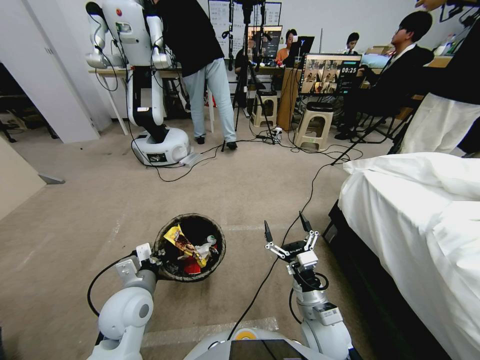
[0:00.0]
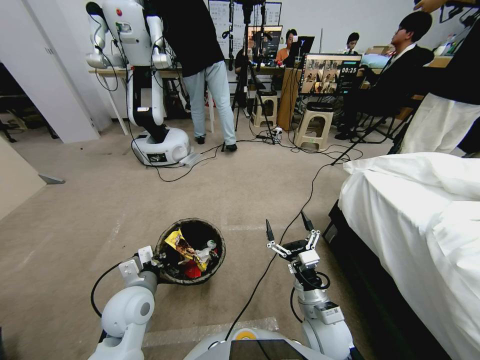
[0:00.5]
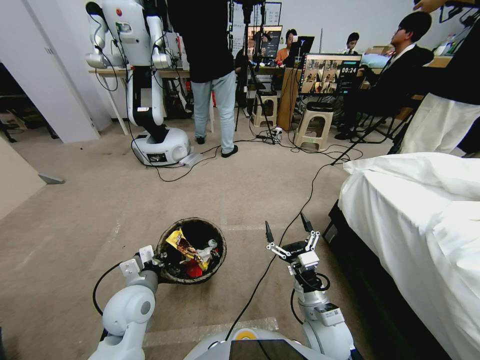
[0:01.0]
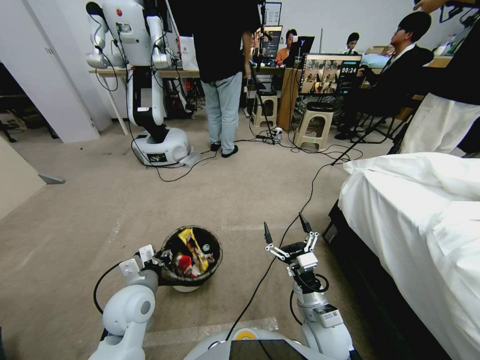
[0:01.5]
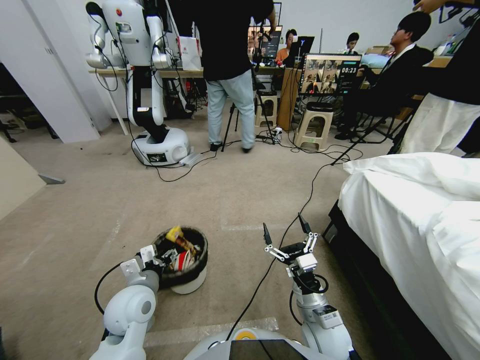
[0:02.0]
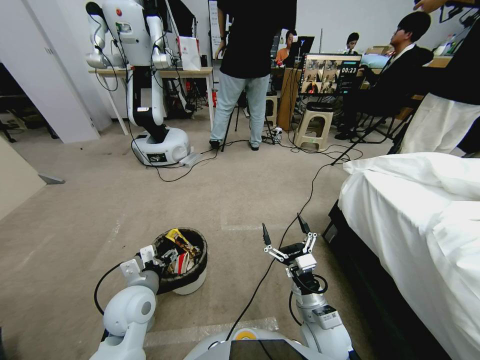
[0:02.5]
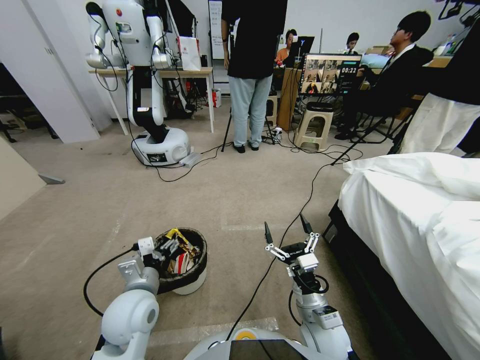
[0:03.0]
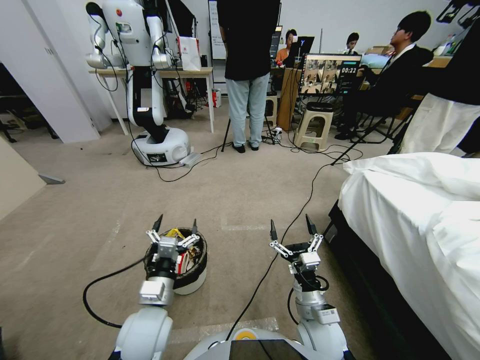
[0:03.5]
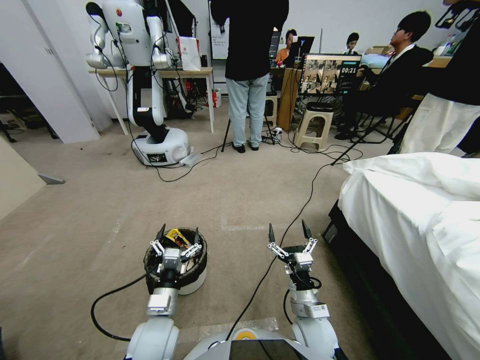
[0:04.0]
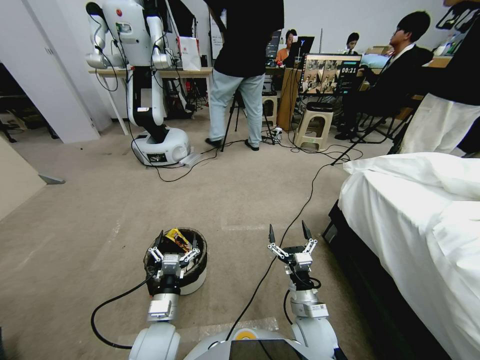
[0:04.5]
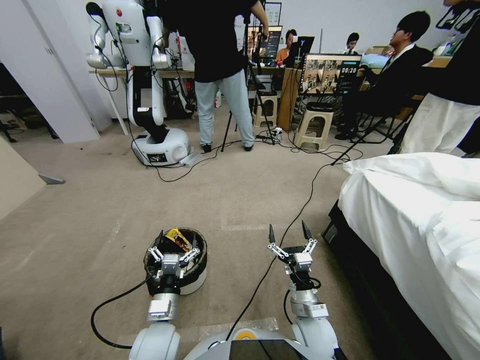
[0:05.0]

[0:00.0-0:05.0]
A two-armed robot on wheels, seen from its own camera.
Task of the whole recording: Pick up the trash bin, then pick up the garbage from the floor and place it into the trash bin.
0:00.0 to 0:02.5: The left gripper opens up.
0:02.5 to 0:05.0: The left gripper heads downward, backward and to the right, covering some 10 cm.

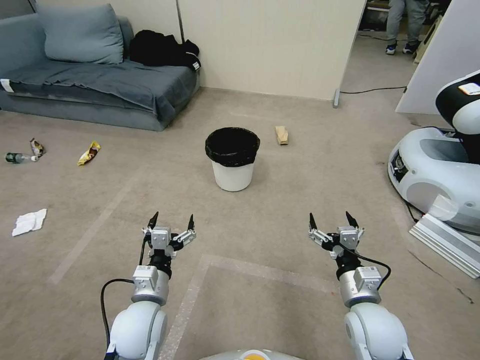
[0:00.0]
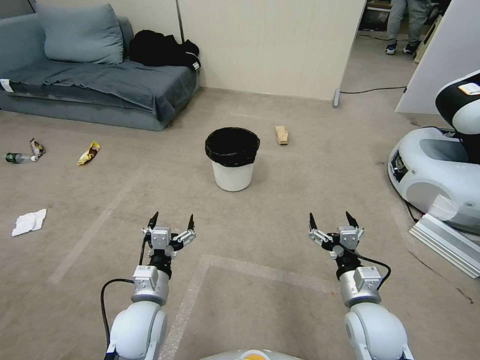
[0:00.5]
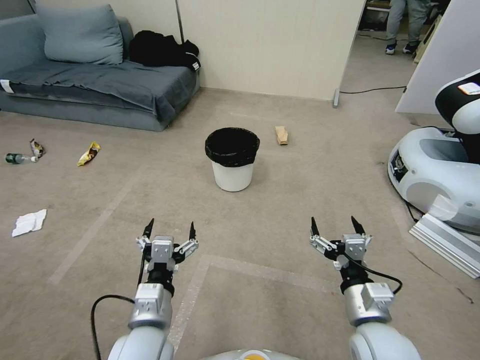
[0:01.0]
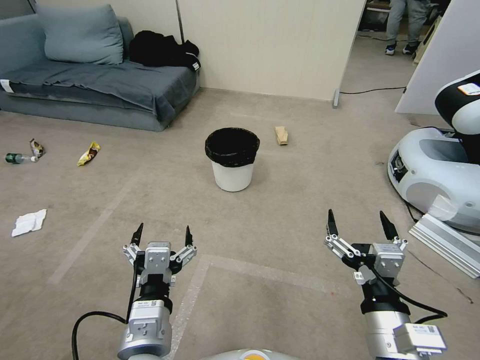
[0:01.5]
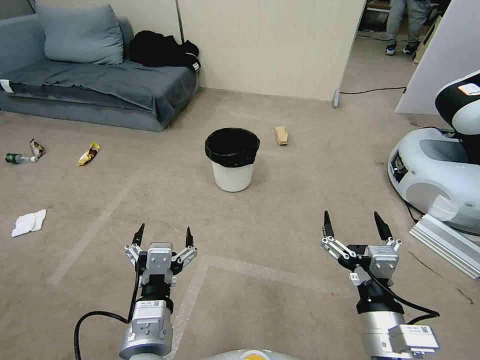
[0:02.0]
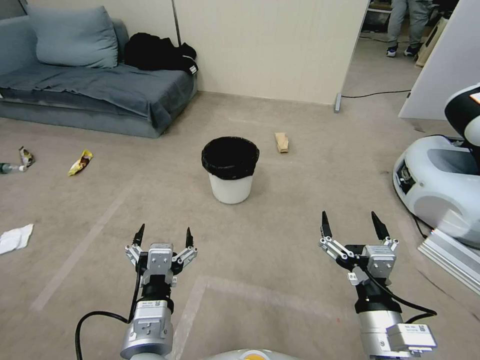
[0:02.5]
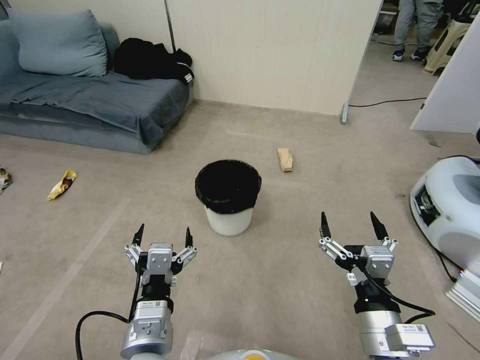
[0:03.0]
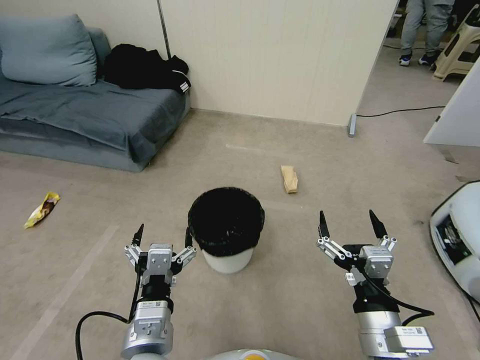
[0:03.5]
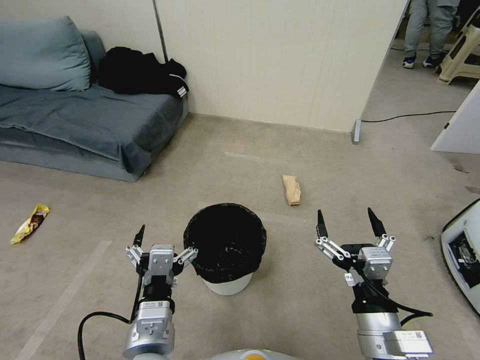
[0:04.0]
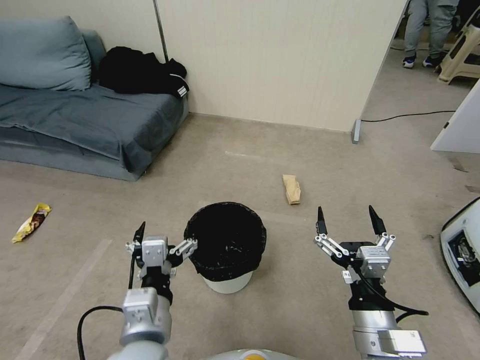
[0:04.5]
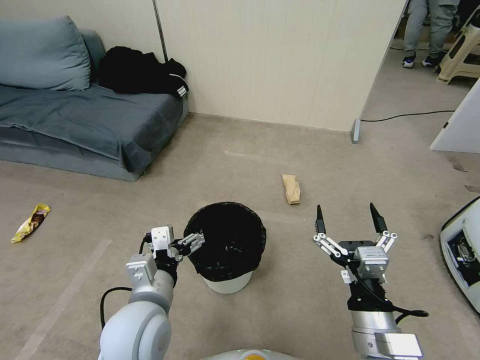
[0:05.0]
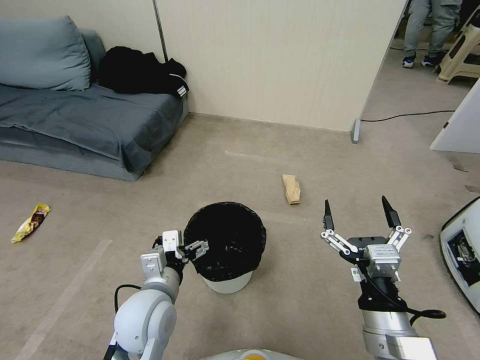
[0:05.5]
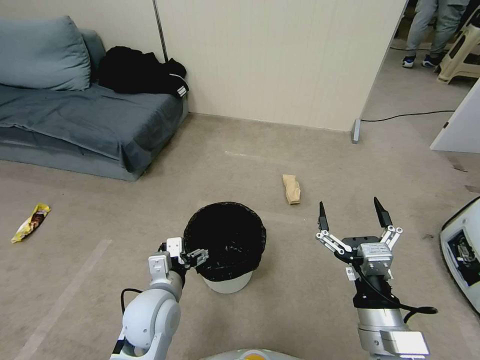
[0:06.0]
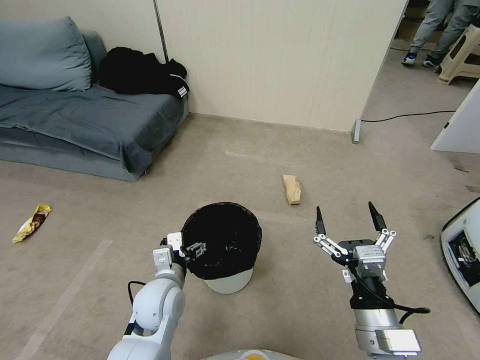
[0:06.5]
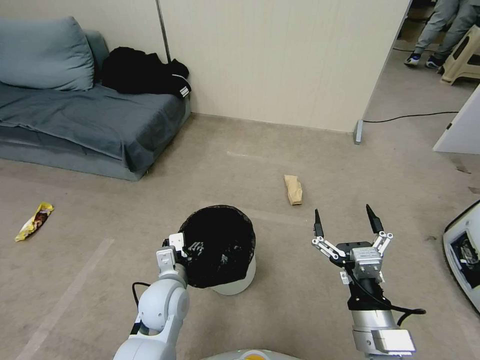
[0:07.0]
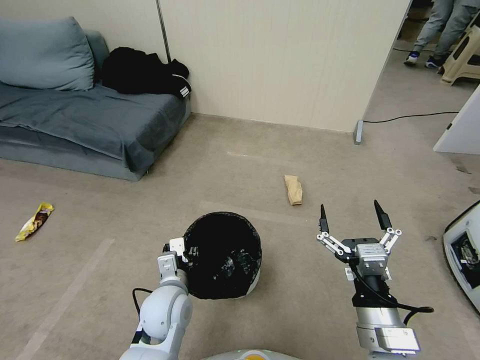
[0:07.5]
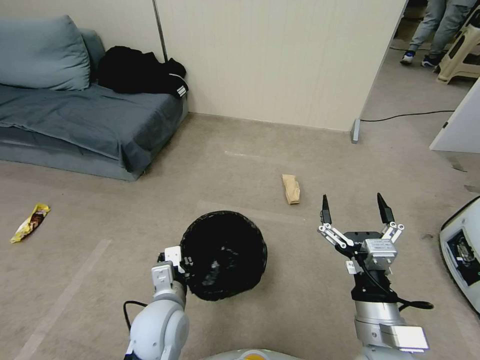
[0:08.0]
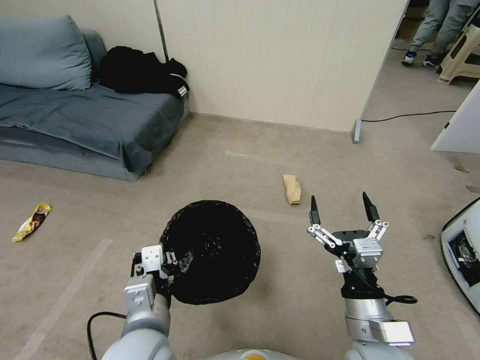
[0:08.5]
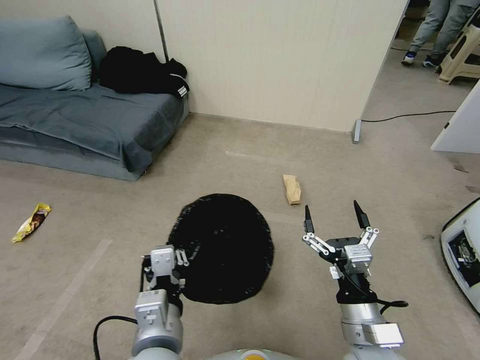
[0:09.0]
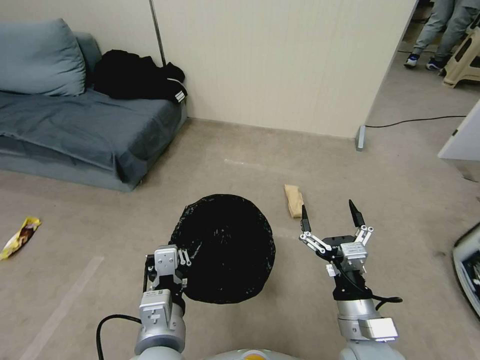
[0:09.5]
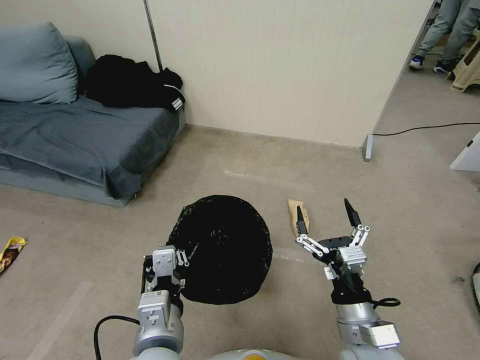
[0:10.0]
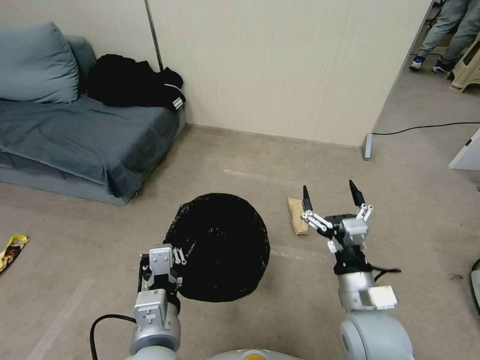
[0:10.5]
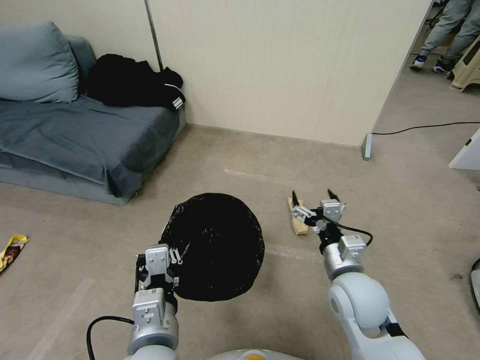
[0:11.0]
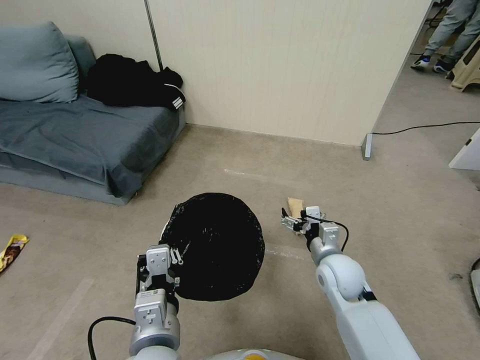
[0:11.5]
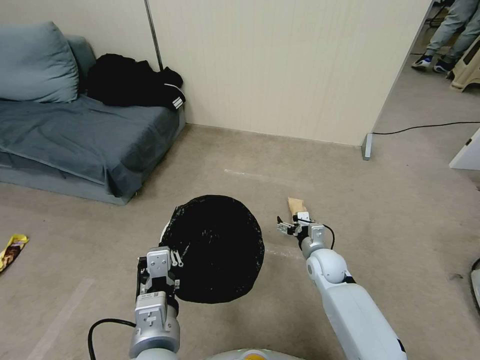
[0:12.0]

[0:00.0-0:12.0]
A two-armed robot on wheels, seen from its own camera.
Task of the whole recording: Pick up the trash bin, then pick up the garbage from the floor and place it into the trash bin.
0:04.0 to 0:06.0: The left gripper heads forward and downward, covering approximately 15 cm.
0:06.0 to 0:08.0: The left gripper closes.
0:08.0 to 0:10.0: The left gripper shifts approximately 15 cm upward and backward.
0:10.0 to 0:12.0: The right gripper moves forward and downward, approximately 25 cm.

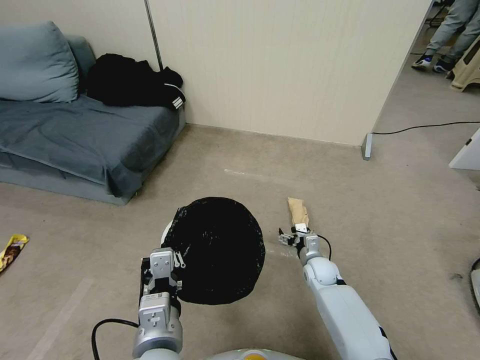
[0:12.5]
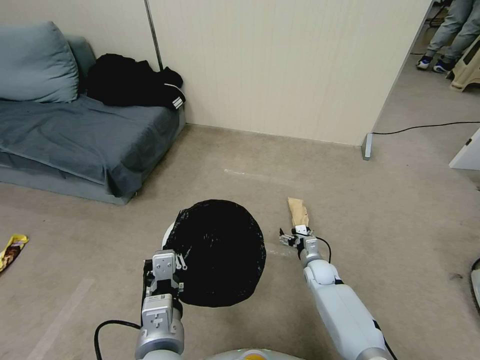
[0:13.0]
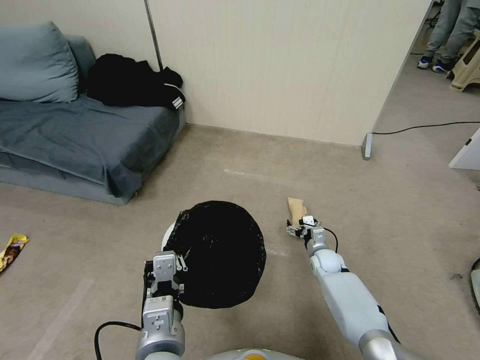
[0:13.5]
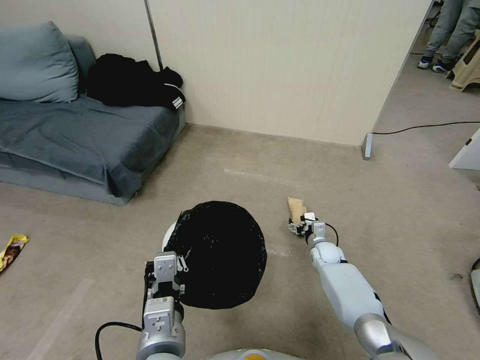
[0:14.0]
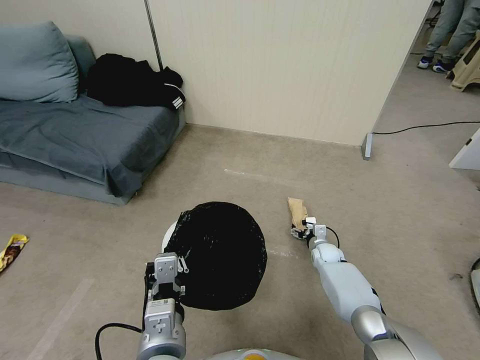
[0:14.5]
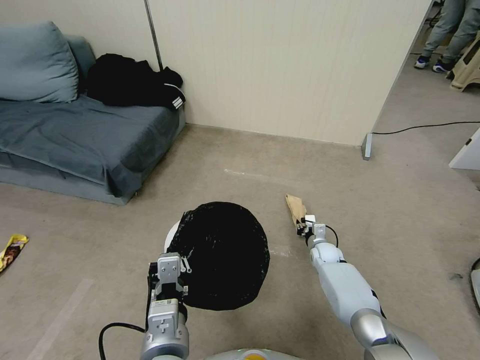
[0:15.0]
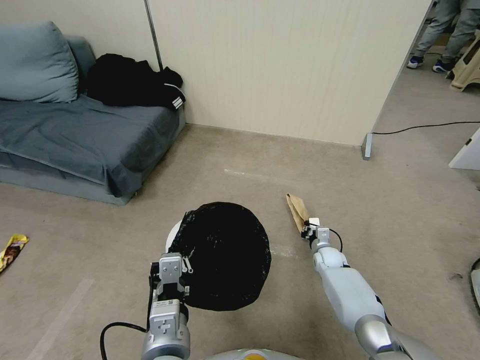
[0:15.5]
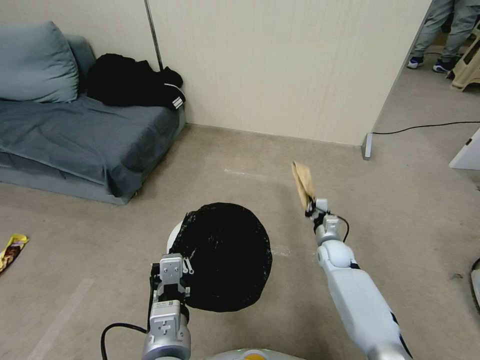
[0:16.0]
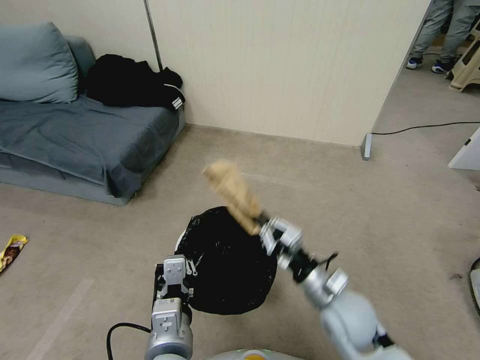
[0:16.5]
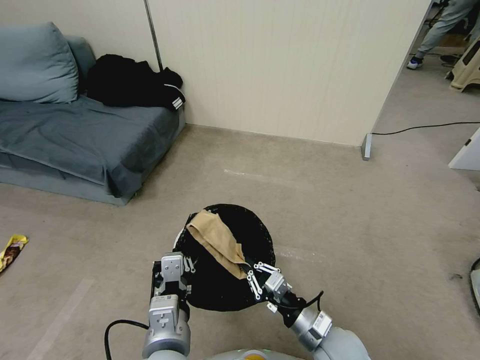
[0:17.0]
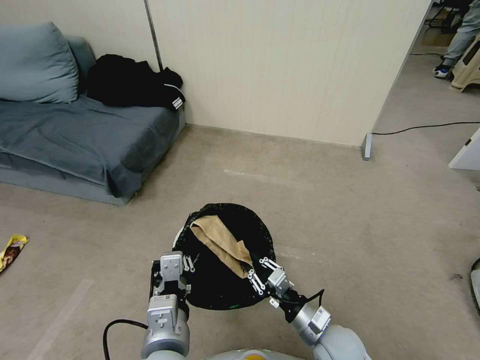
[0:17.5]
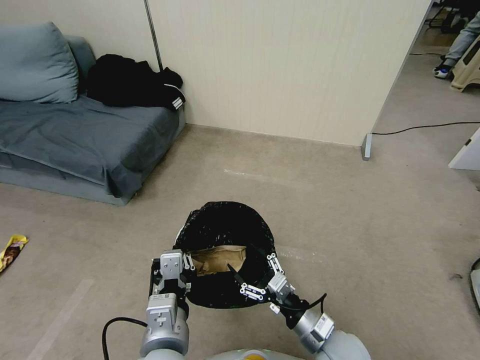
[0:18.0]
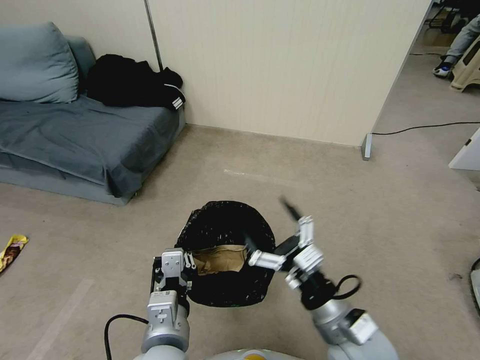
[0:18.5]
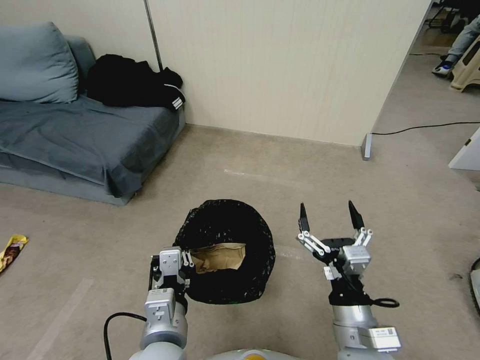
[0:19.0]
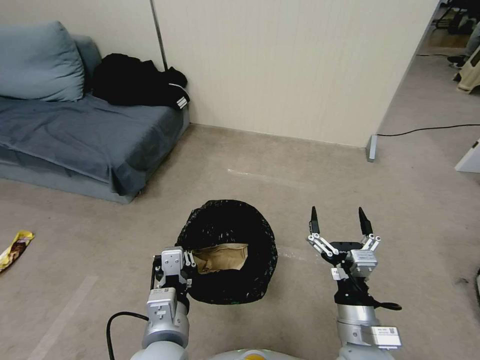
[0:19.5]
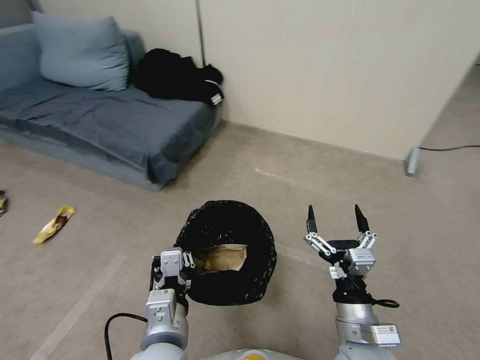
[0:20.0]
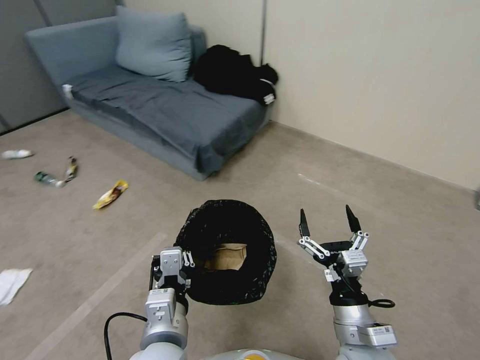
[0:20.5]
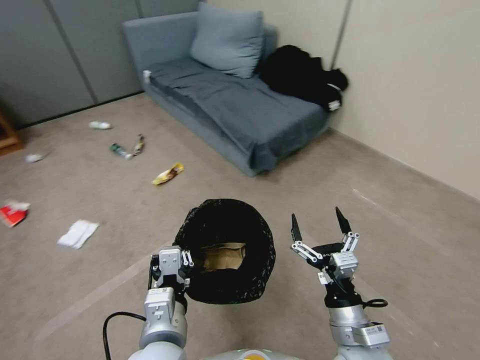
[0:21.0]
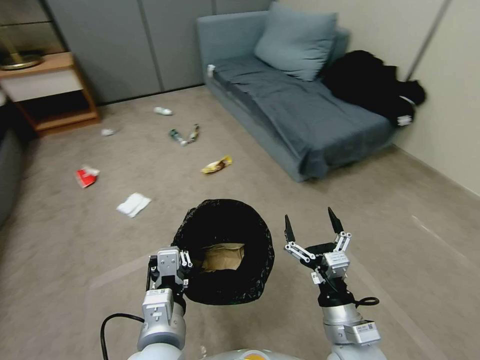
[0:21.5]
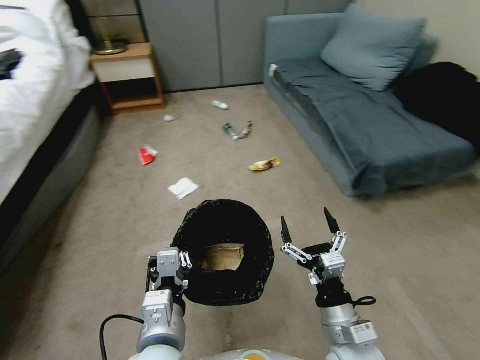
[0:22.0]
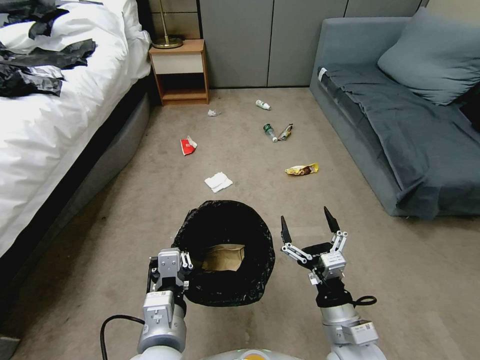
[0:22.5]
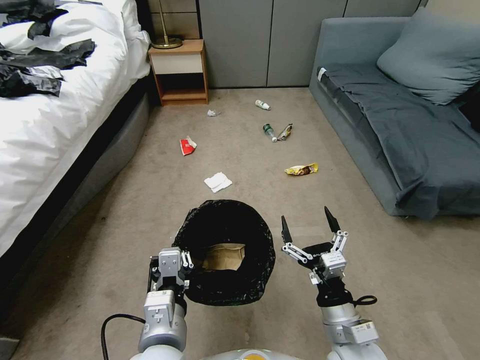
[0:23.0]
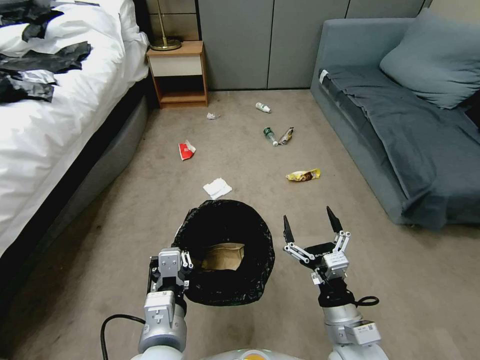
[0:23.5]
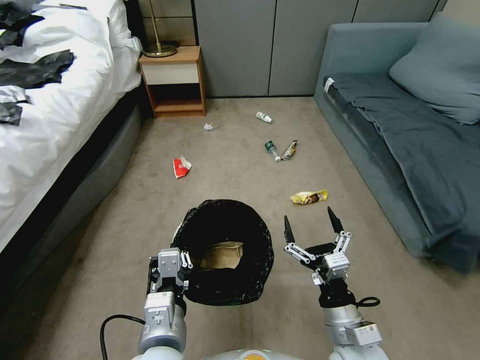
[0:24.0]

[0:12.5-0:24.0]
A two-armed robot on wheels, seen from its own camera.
Task of the whole recording: Pick up the trash bin, then pick up the garbage from the floor and place it into the trash bin.
0:12.5 to 0:14.5: The right gripper goes about 5 cm forward.
0:14.5 to 0:16.5: The right gripper is displaced upward and backward by roughly 30 cm, and closes.
0:16.5 to 0:18.5: The right gripper is displaced backward by approximately 10 cm, travels downward and back again, some 10 cm each way, and opens up.
